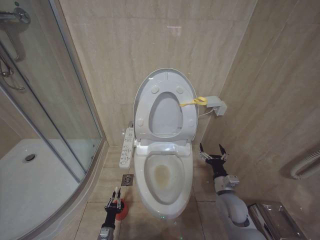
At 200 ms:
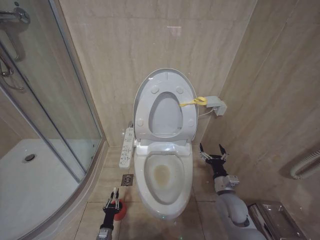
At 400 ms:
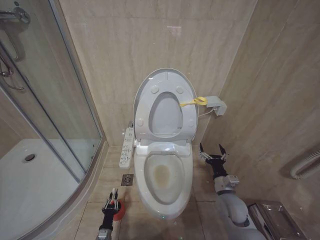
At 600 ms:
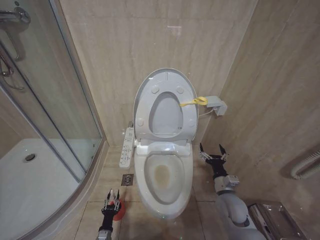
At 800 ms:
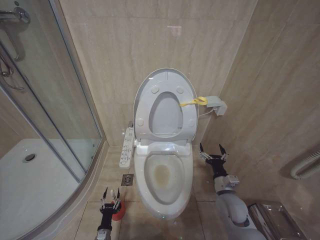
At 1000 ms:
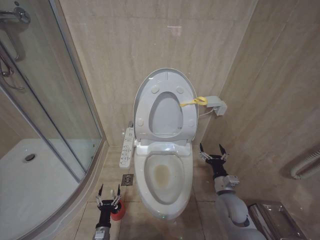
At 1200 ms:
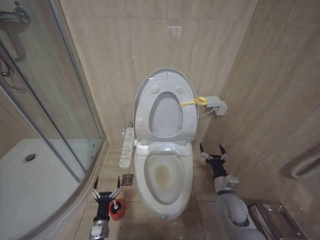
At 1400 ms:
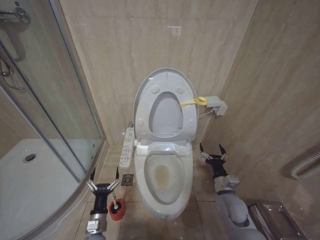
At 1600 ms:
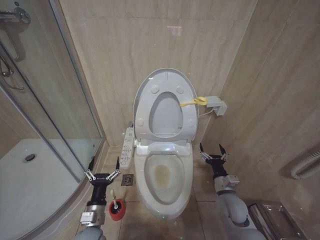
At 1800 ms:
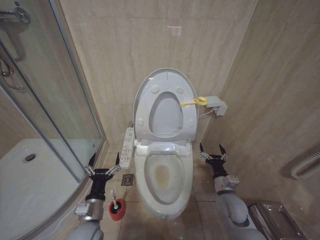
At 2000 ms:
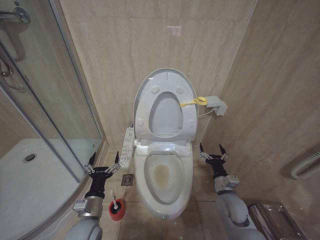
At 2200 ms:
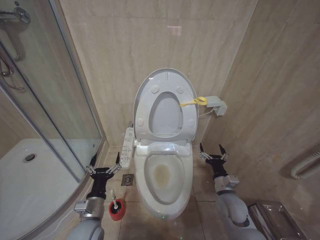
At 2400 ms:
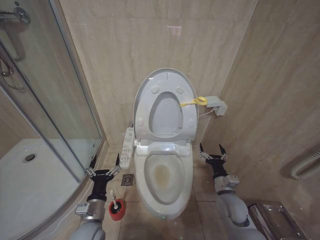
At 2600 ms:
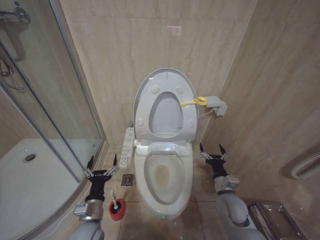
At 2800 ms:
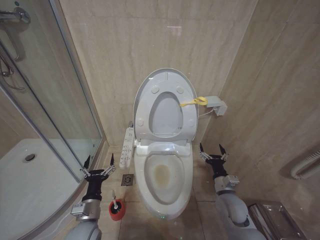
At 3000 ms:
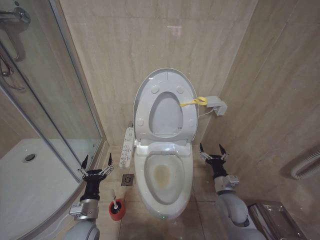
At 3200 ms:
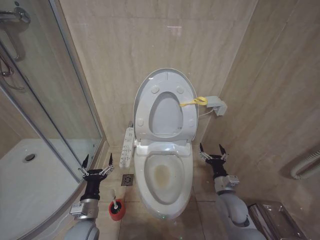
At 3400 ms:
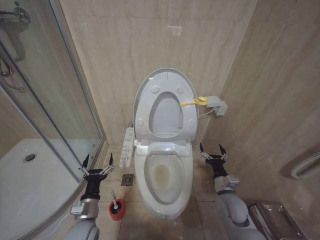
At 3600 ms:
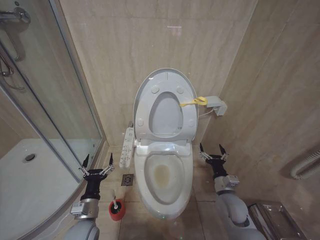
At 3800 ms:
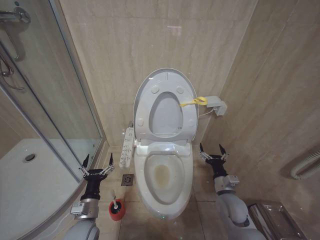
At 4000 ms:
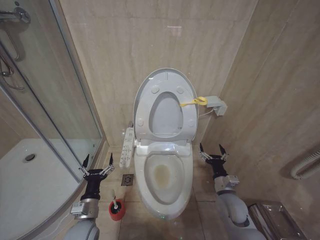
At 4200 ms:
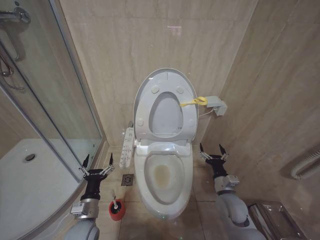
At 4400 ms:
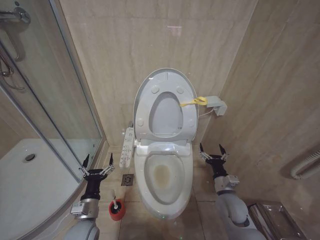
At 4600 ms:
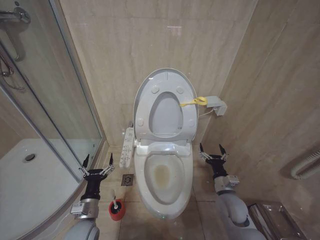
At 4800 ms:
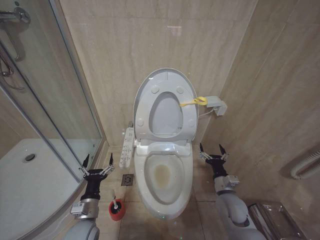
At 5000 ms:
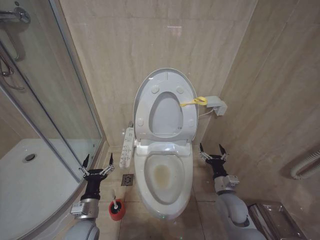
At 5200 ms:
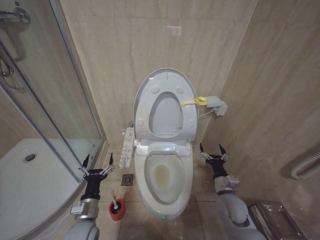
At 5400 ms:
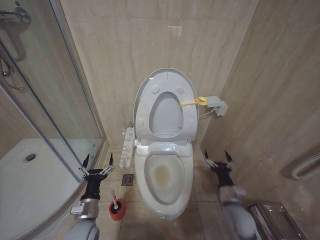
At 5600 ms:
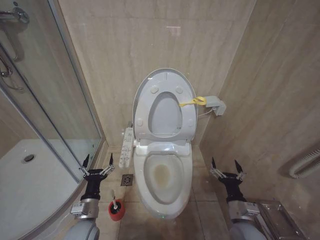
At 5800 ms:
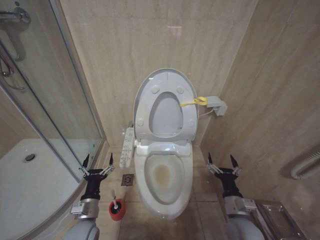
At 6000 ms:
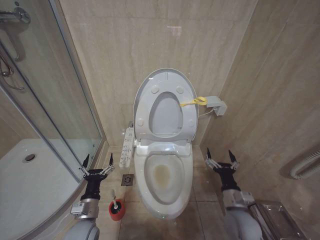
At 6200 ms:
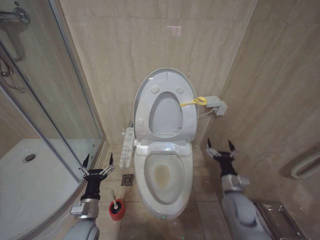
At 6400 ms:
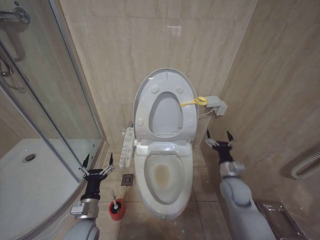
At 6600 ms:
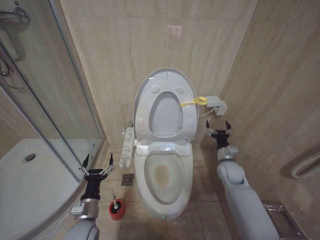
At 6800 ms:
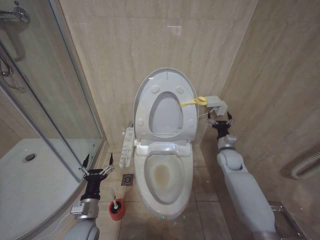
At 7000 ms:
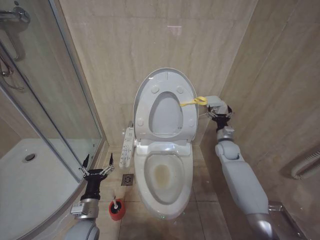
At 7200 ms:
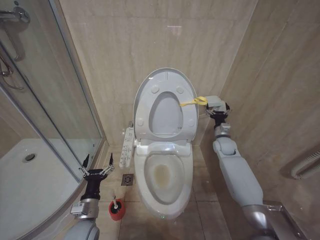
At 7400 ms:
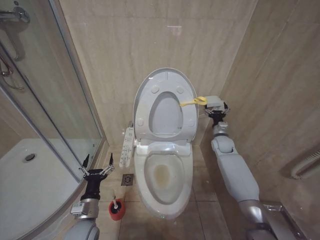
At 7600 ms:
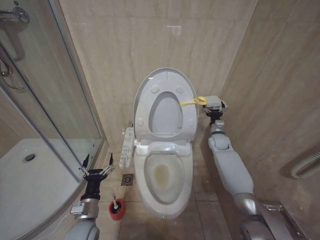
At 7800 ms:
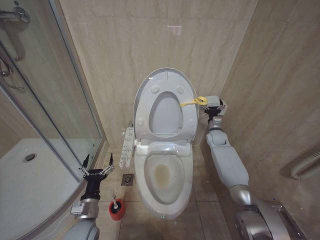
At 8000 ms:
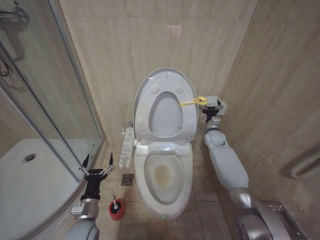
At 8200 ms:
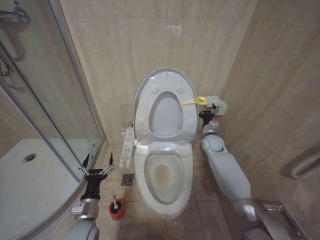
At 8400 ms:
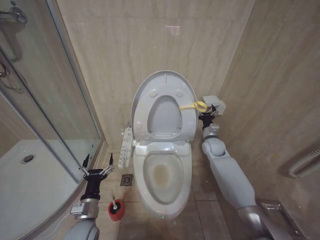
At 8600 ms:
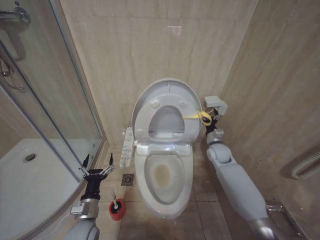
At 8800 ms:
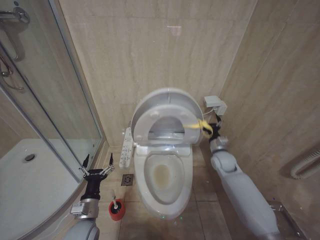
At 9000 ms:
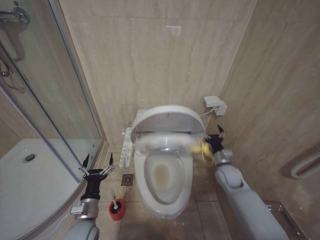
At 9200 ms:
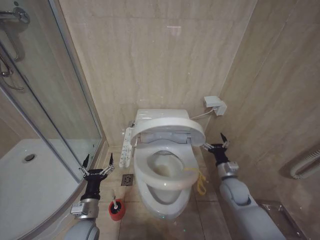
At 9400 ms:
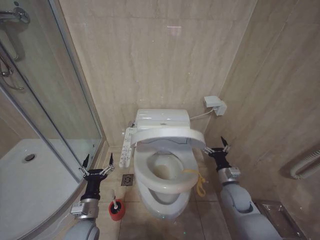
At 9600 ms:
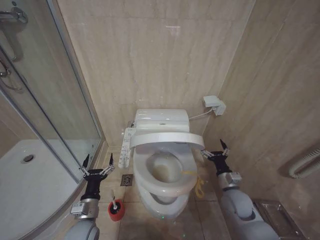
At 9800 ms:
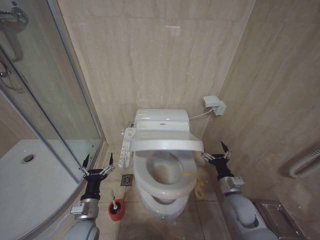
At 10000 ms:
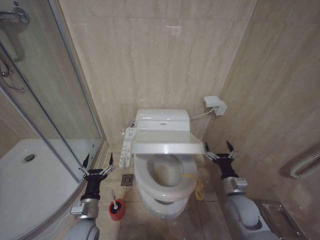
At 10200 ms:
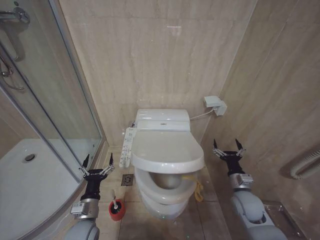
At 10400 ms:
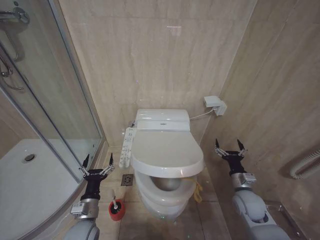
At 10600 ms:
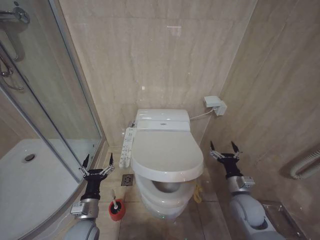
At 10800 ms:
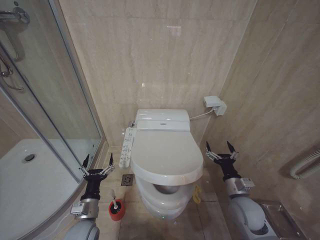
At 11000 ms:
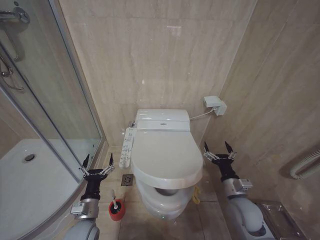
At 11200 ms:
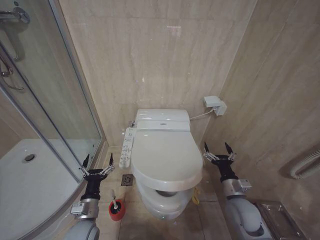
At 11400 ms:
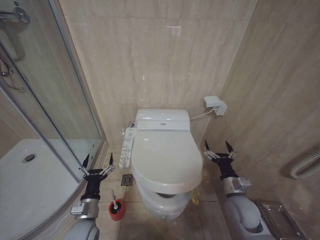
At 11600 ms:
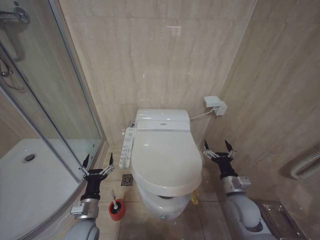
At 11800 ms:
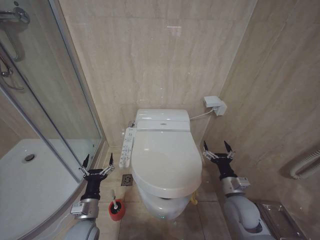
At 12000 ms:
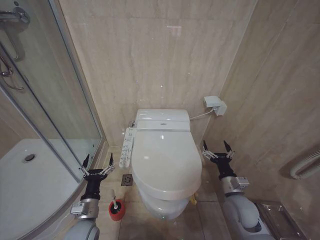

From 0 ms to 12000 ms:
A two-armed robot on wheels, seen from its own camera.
Task of the whole recording: Open the toilet lid, clean the toilet bowl with a toilet brush, close the toilet lid, and flush.
From 0 ms to 1600 ms: The left gripper shifts approximately 25 cm upward, and opens its fingers.
From 1600 ms to 3000 ms: The grippers make only small movements.
From 3000 ms to 4400 ms: The two grippers keep their place.
From 4400 ms to 6000 ms: The right gripper travels backward by about 5 cm.
From 6000 ms to 7600 ms: The right gripper heads forward, covering some 30 cm.
From 7600 ms to 9000 ms: The right gripper is displaced backward by approximately 15 cm.
From 9000 ms to 10400 ms: The right gripper travels backward by approximately 10 cm.
From 10400 ms to 12000 ms: The right gripper heads to the left, covering approximately 5 cm.

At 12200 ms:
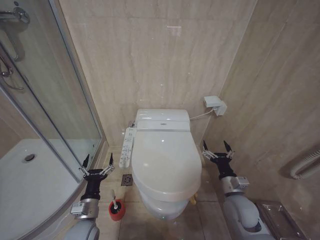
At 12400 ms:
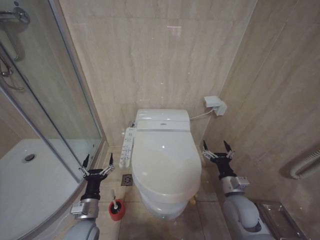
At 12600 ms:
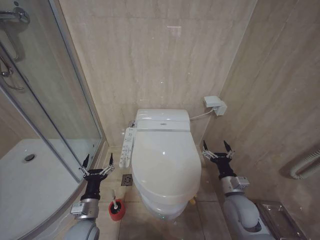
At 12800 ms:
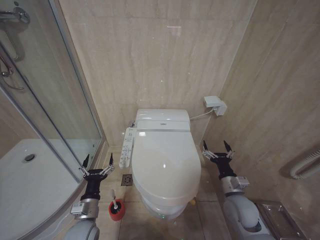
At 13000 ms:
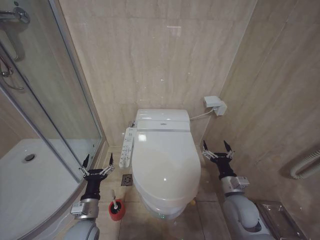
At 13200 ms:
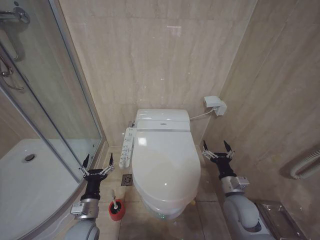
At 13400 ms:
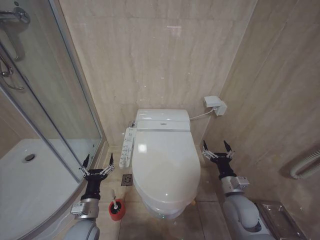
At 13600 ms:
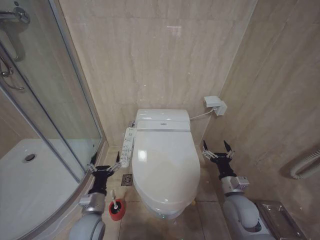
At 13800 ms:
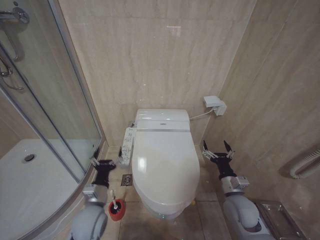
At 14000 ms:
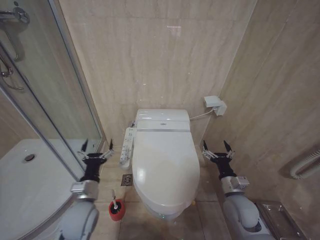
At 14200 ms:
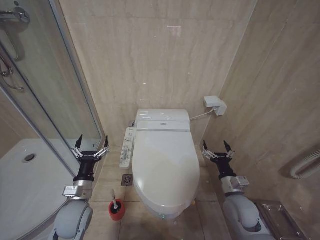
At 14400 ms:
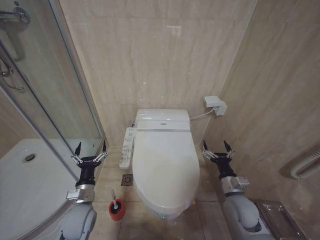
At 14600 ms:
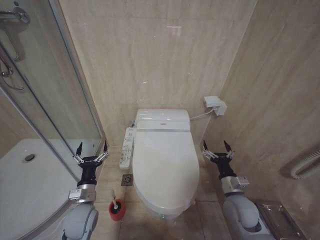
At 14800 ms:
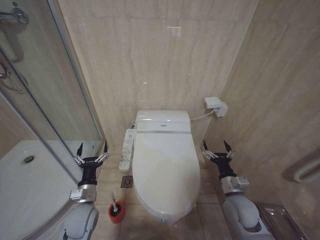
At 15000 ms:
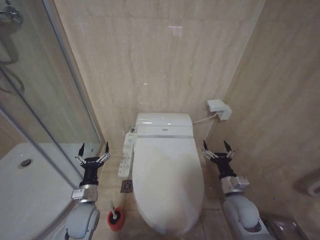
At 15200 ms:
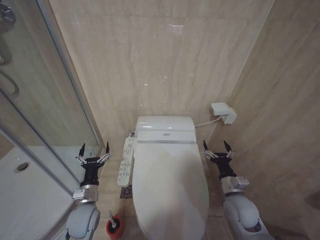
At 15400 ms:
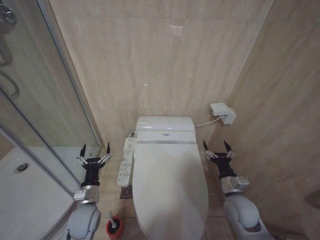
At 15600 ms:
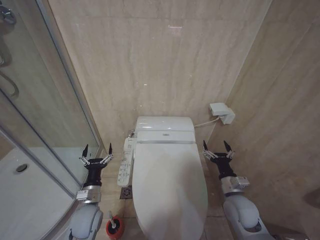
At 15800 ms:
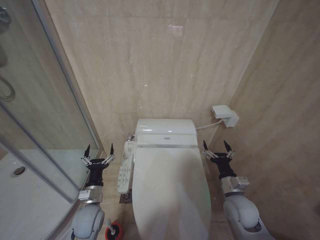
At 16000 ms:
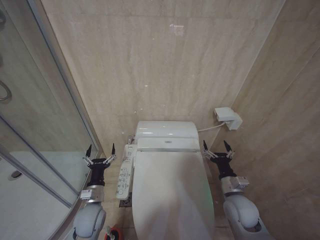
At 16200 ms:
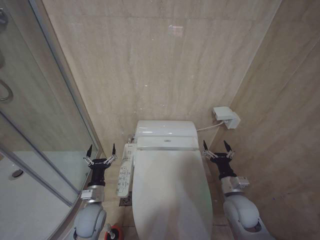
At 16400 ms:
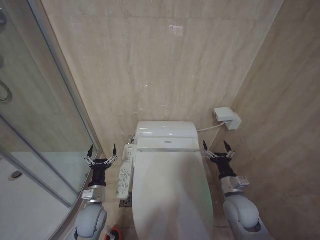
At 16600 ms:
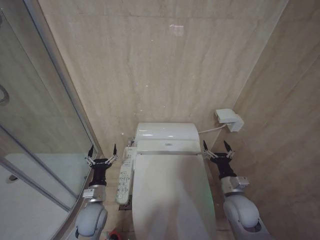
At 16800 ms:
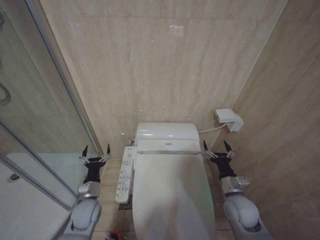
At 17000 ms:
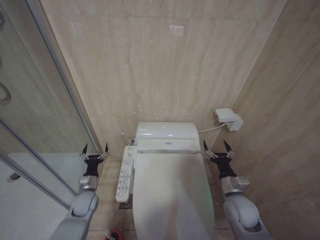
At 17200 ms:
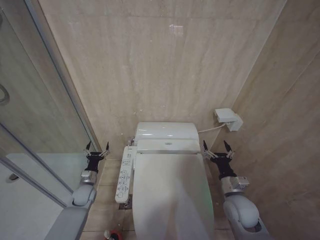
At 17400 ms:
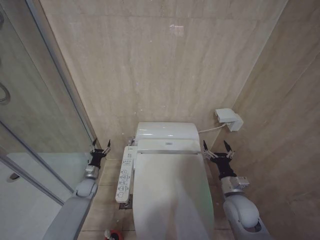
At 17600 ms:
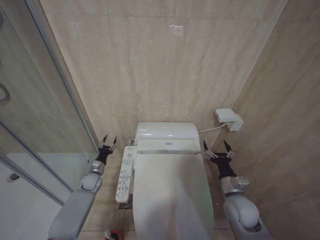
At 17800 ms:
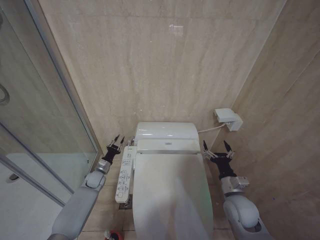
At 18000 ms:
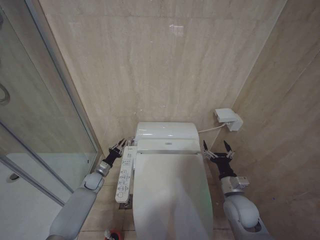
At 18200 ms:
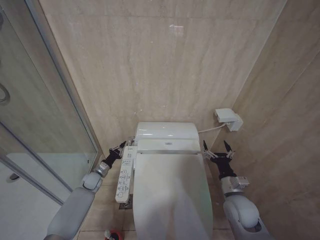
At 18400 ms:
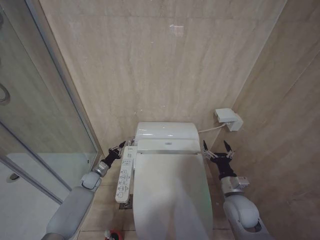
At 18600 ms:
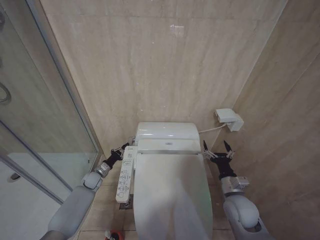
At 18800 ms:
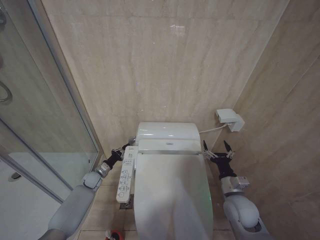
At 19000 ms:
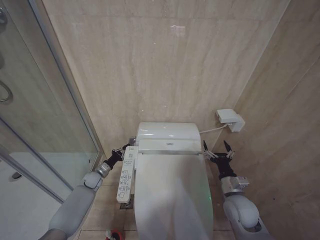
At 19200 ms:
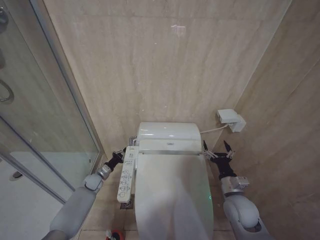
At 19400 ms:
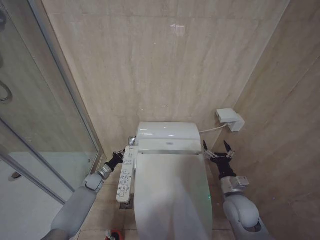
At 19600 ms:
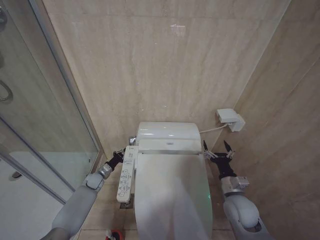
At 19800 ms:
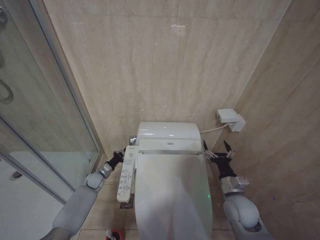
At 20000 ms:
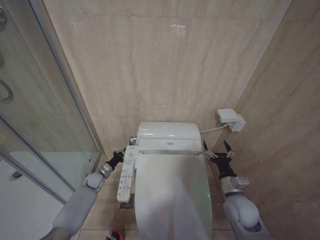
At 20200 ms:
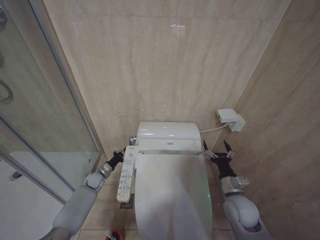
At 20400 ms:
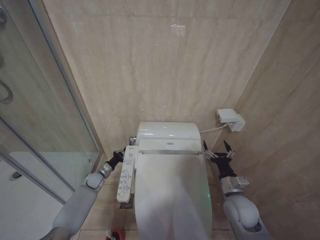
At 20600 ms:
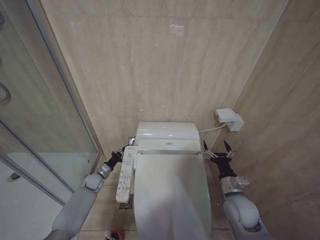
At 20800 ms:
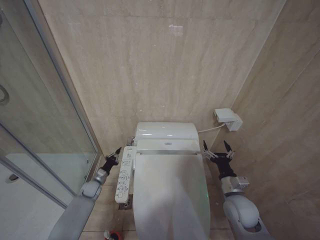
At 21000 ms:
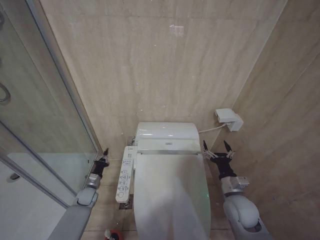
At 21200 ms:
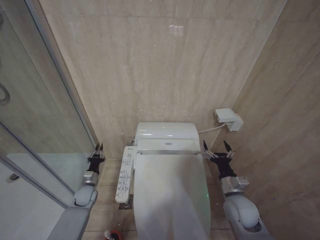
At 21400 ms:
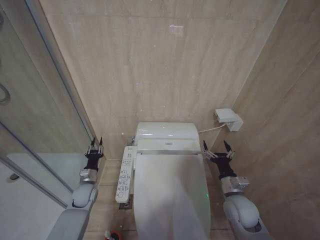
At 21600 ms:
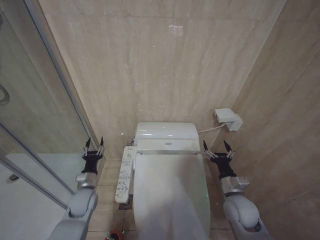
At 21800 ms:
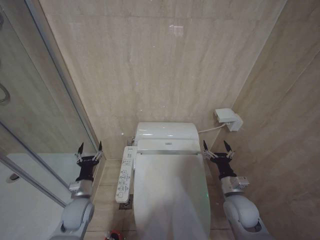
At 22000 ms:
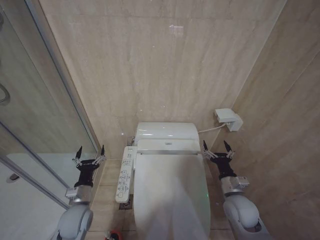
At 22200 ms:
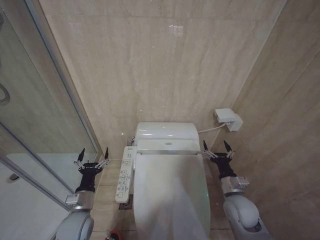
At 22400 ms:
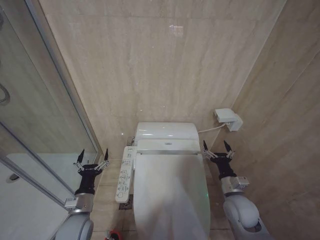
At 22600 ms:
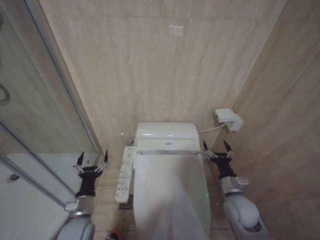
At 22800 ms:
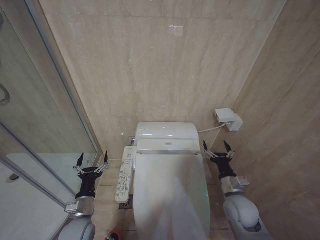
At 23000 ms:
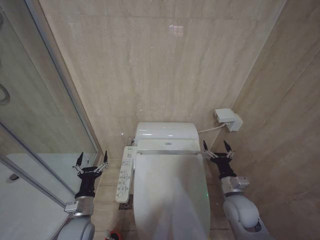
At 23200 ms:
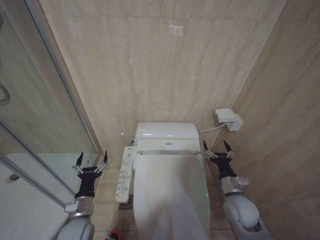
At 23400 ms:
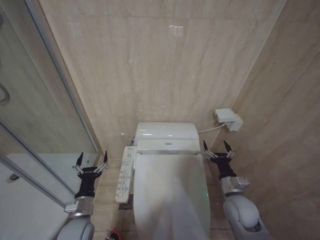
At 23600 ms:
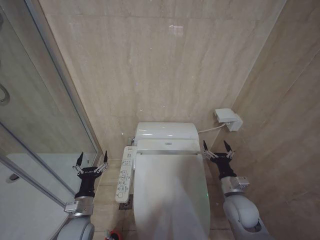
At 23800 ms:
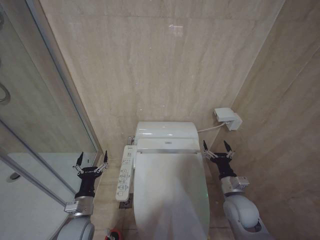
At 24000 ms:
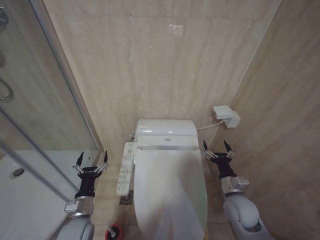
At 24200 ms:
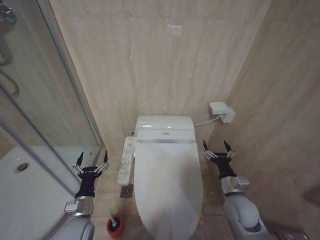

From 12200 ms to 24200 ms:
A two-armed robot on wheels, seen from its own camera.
Task of the whole recording: Open the toilet lid, clean the toilet bowl with a toilet brush, close the toilet lid, and flush.
From 12200 ms to 13800 ms: The left gripper changes place by approximately 5 cm.
From 13800 ms to 15200 ms: The left gripper moves some 5 cm.
From 15200 ms to 16600 ms: The grippers stay close to where they were, moving slightly.
From 16600 ms to 18200 ms: The left gripper heads forward, to the left and downward, covering about 20 cm, and closes its fingers.
From 18200 ms to 19800 ms: There are only small adjustments of the grippers.
From 19800 ms to 21200 ms: The left gripper moves backward, some 5 cm.
From 21200 ms to 22600 ms: The left gripper is displaced backward, upward and to the right by roughly 20 cm, and opens.
From 22600 ms to 24200 ms: Both grippers stay about where they are.
